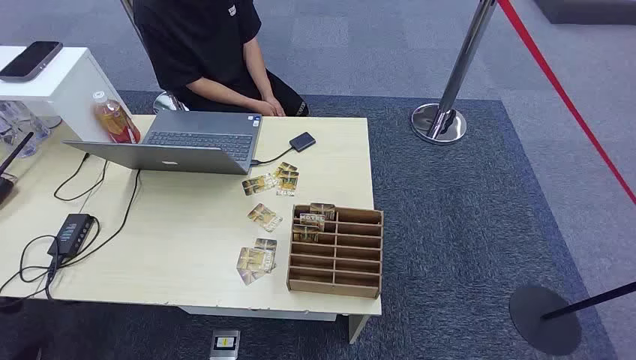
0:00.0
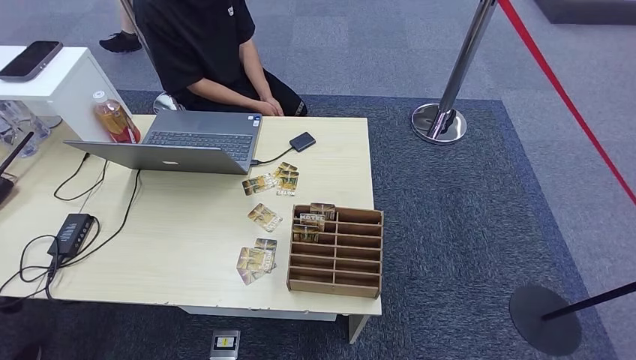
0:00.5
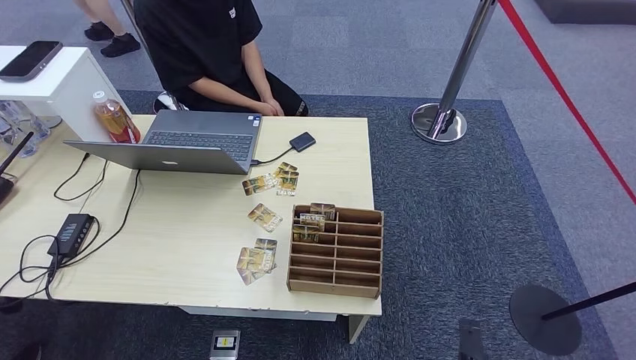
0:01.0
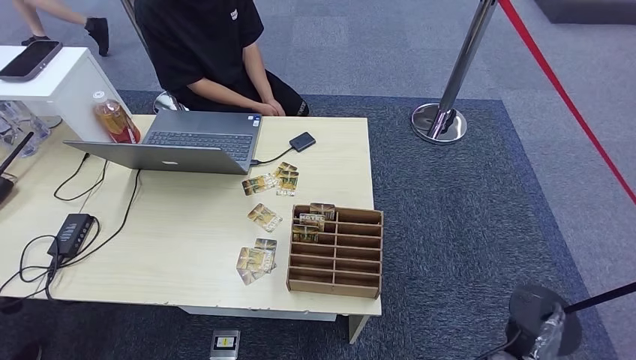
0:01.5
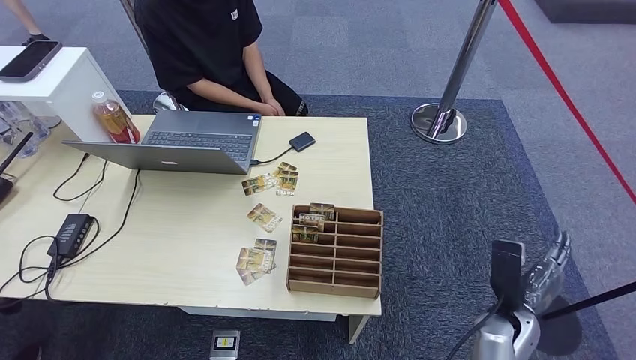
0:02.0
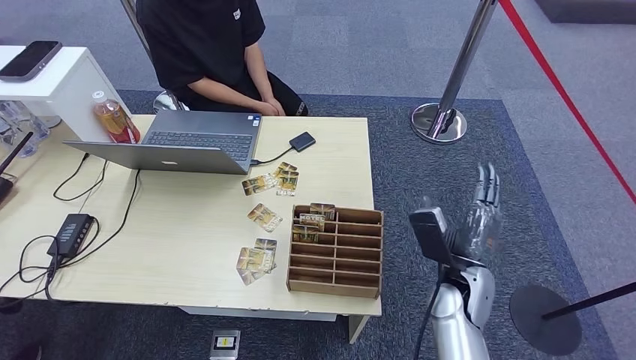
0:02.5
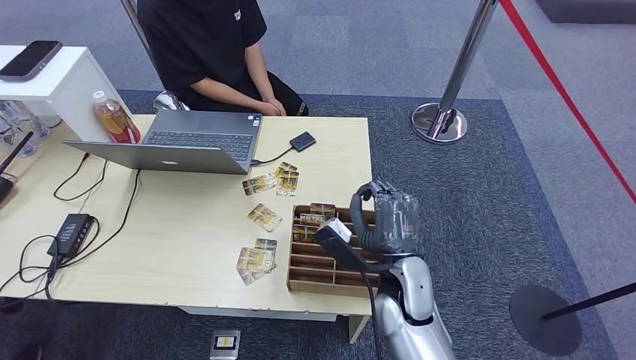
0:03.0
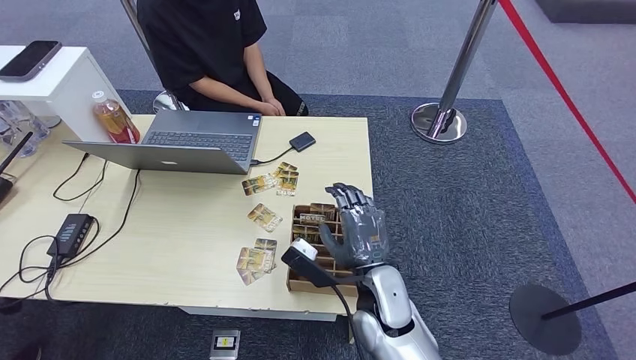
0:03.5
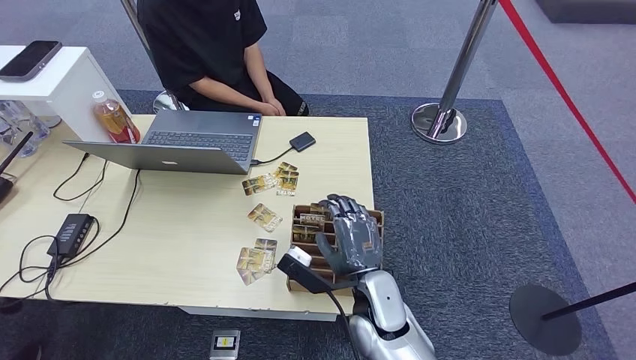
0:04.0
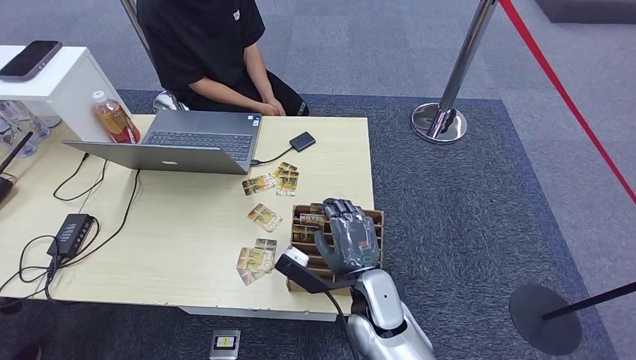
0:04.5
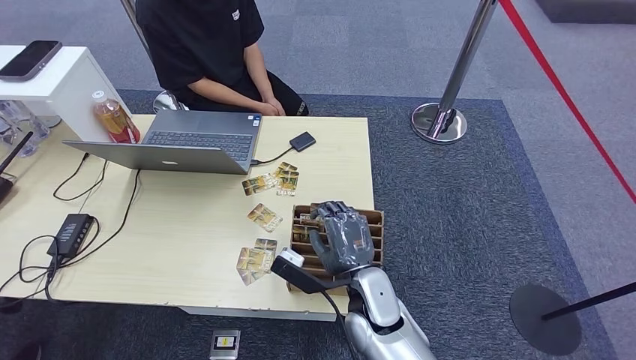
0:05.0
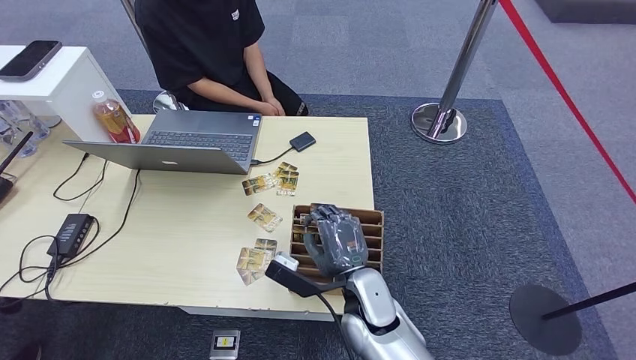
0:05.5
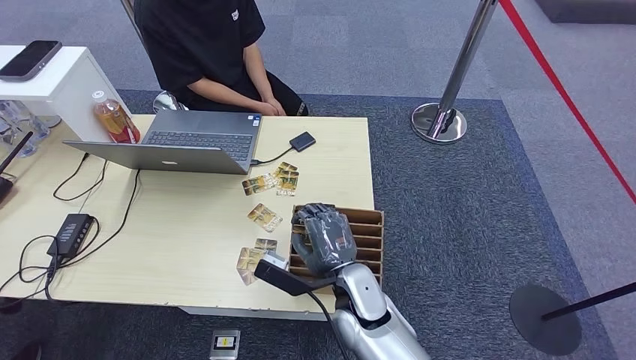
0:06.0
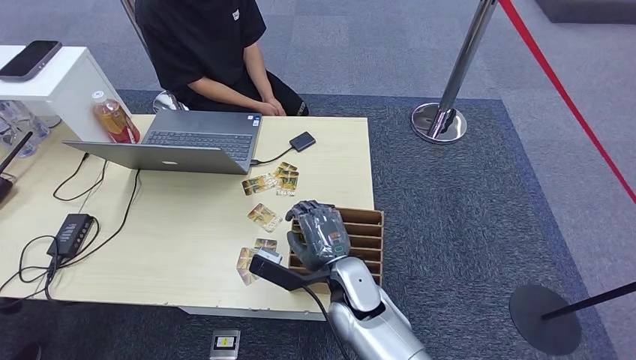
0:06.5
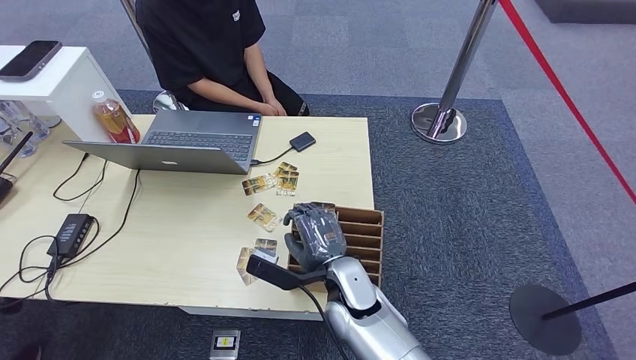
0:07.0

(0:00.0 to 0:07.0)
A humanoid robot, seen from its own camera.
Task of the whole recording: Pick up the card and hand it over to the target person.
Step, 0:00.0 - 0:07.0: Pick up the key card from the card box.
0:02.0 - 0:03.5: The right hand travels to the left by some 10 cm.
0:03.5 - 0:07.0: The hands stay close to where they were, moving slightly.
